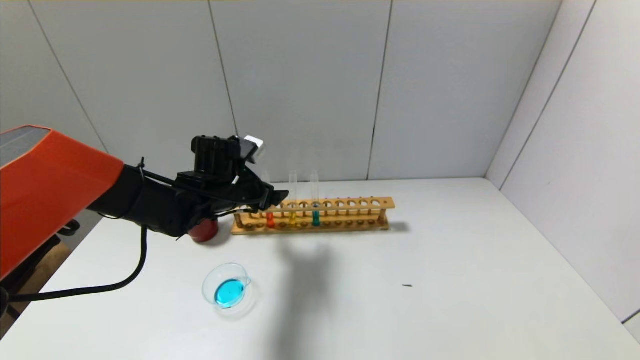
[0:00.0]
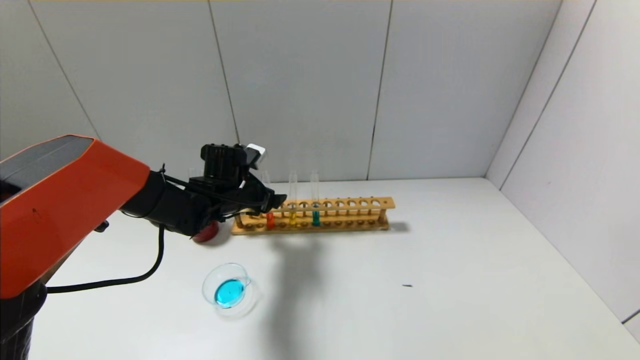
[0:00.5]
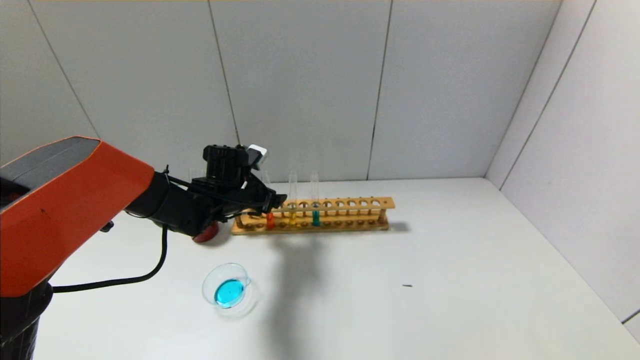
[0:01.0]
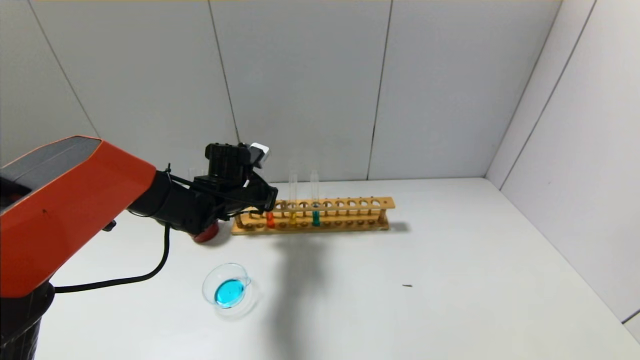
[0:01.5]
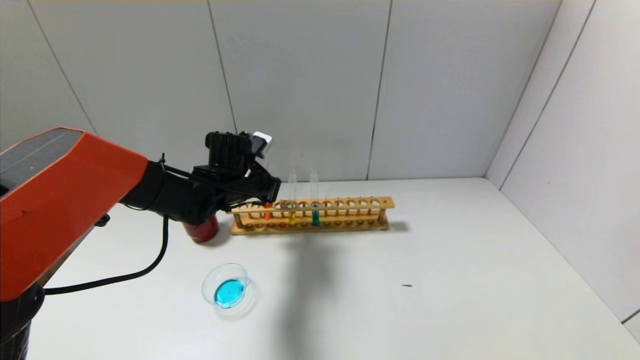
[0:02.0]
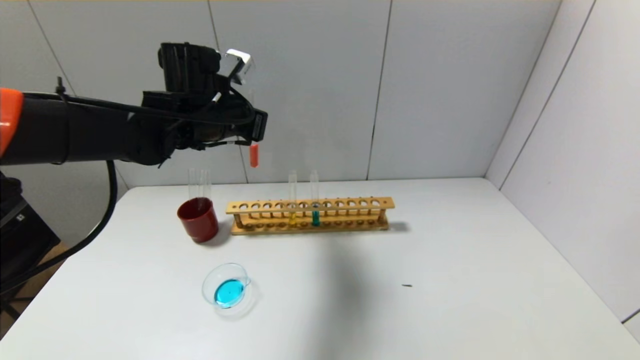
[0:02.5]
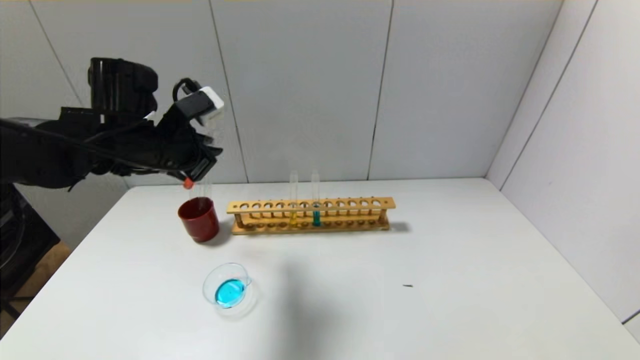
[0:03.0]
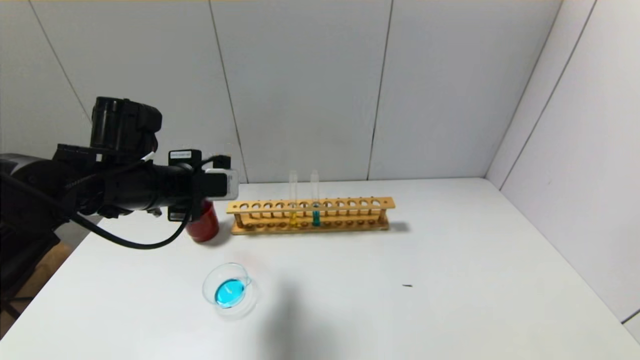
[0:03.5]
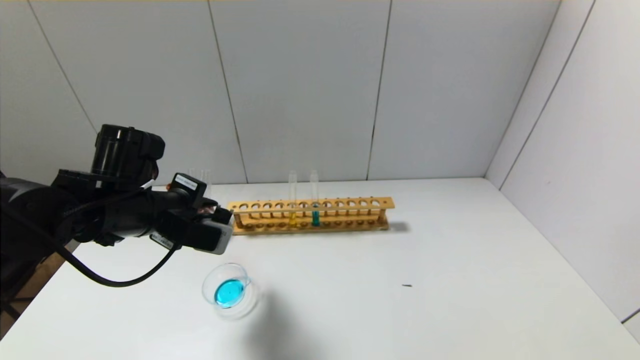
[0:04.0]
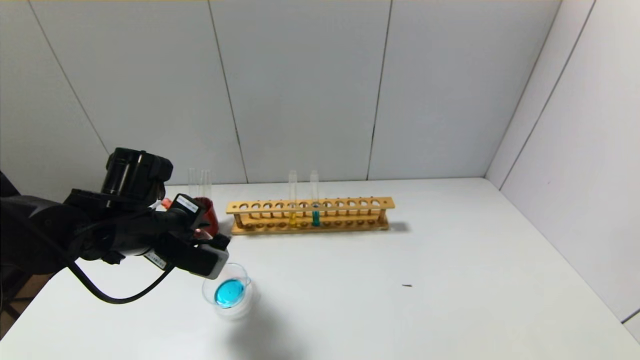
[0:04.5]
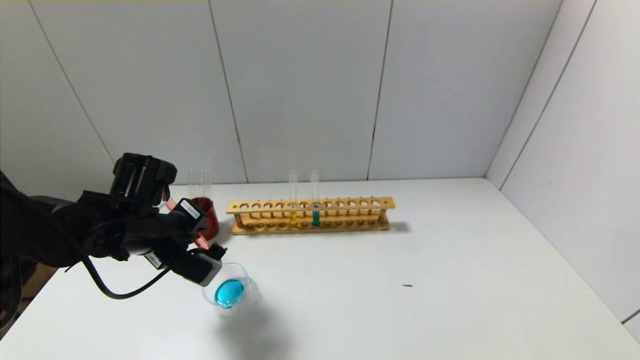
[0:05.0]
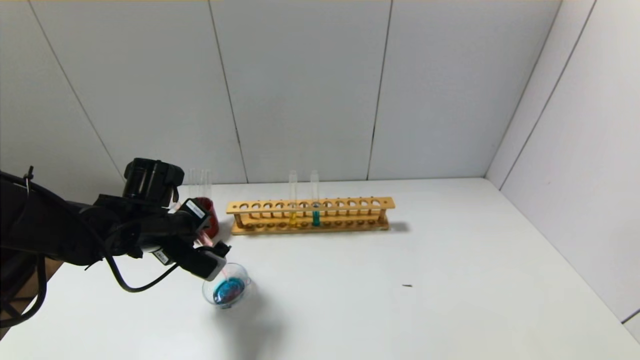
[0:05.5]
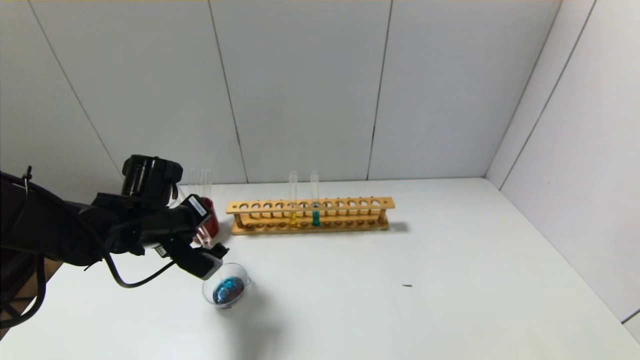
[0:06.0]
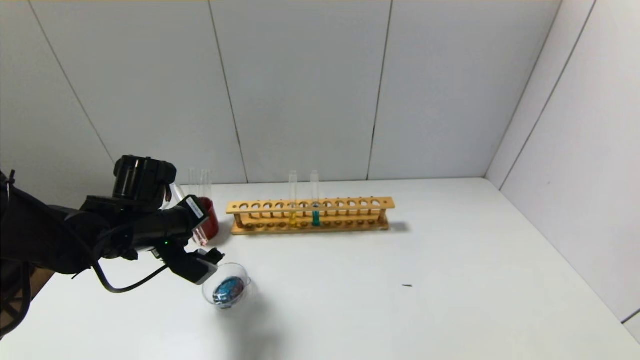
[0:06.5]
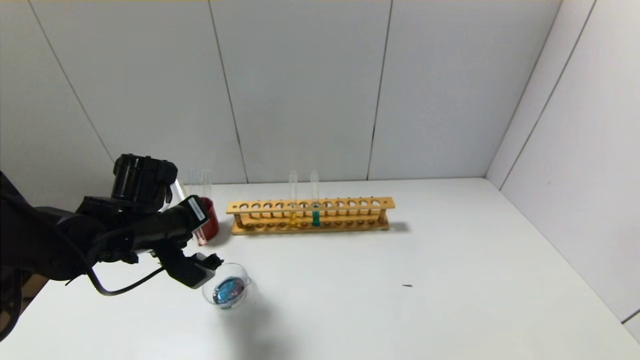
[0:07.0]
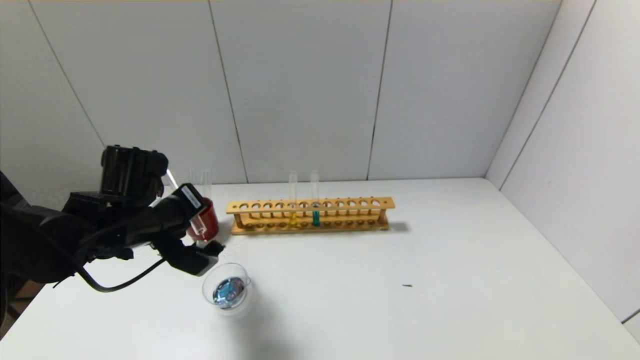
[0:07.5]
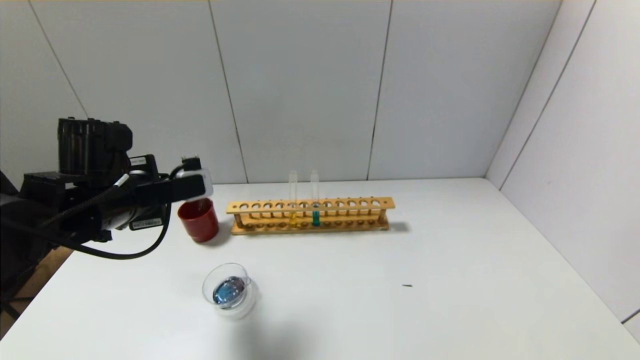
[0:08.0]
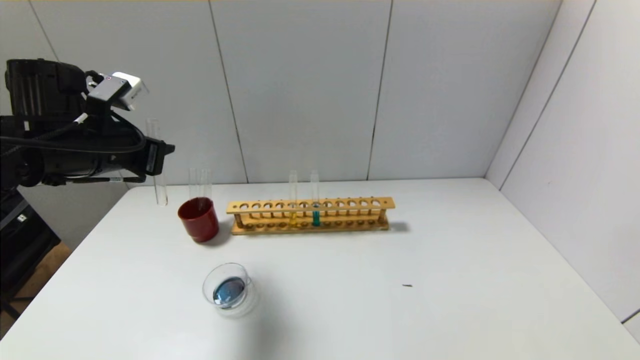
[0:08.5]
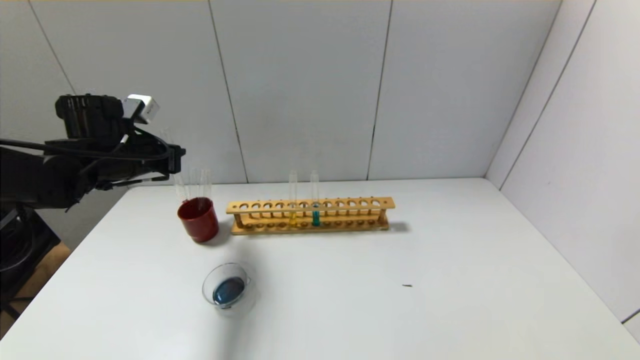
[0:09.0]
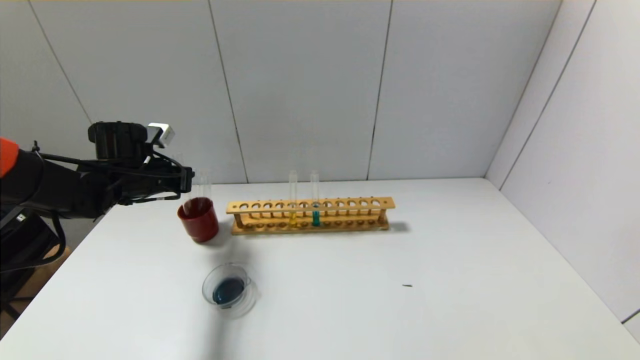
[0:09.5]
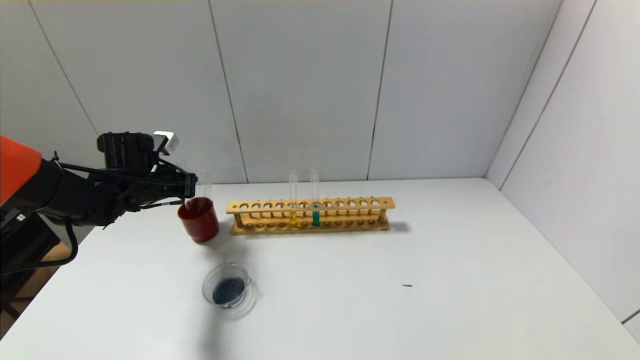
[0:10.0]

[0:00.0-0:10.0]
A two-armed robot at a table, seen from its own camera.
Step, 0:02.0 to 0:07.5: Pour the red reagent into the graduated cylinder with the left gripper.
0:00.0 to 0:02.0: The left gripper closes up.
0:02.0 to 0:04.0: The left gripper is displaced backward and to the left by some 15 cm.
0:04.0 to 0:06.0: The left gripper moves approximately 5 cm.
0:06.0 to 0:08.0: The left gripper shifts roughly 5 cm upward.
0:08.0 to 0:10.0: The left gripper goes approximately 15 cm forward, downward and to the left.

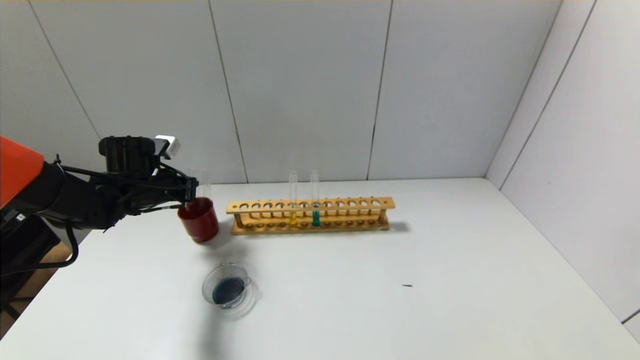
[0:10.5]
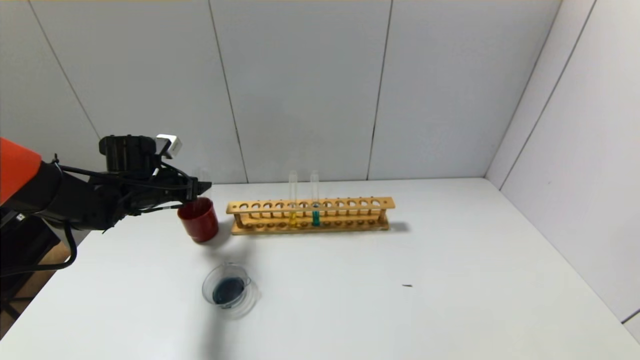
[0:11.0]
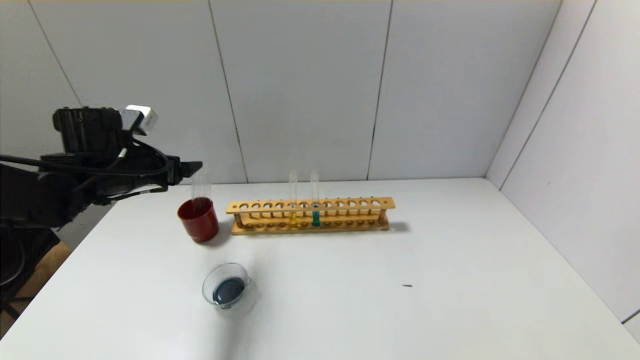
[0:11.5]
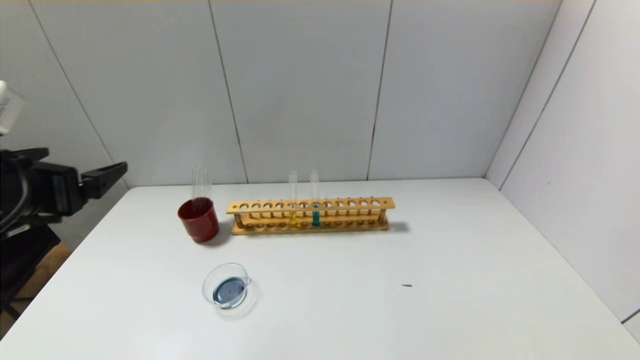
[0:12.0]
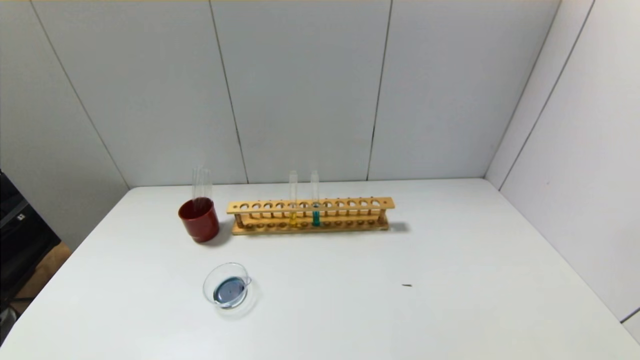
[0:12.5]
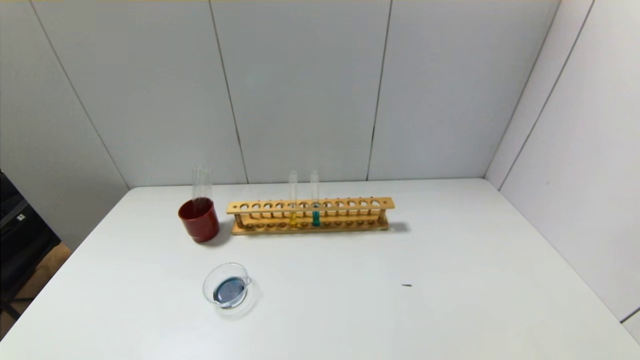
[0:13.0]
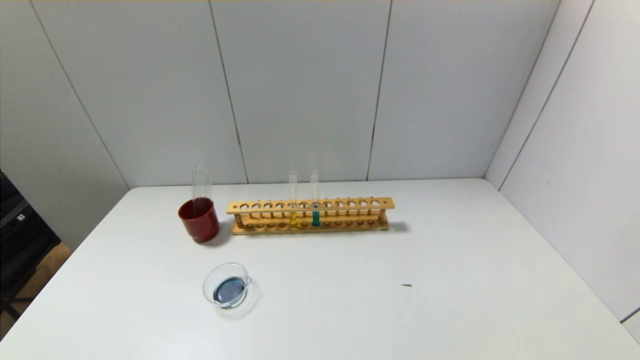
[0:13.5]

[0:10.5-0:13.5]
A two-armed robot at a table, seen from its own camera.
0:10.5 to 0:12.0: The left gripper moves backward and upward, some 25 cm, and opens.
0:12.0 to 0:13.5: The left gripper goes some 25 cm backward and downward.
